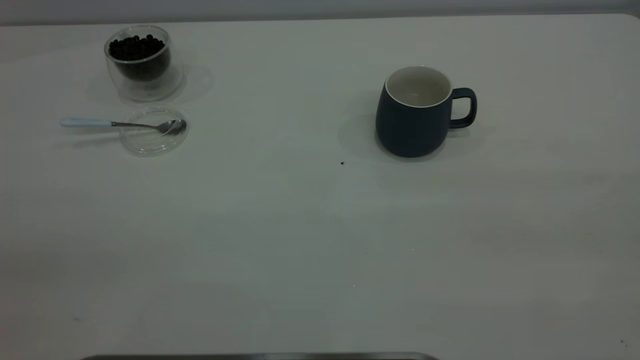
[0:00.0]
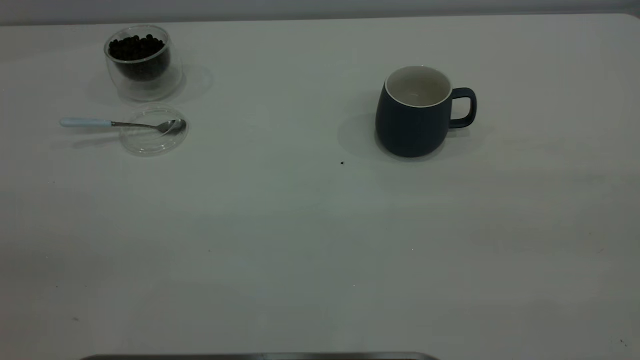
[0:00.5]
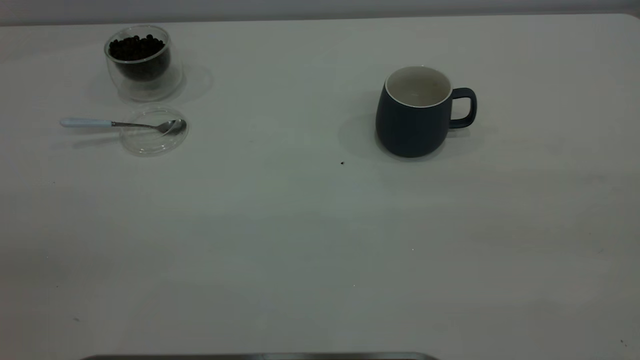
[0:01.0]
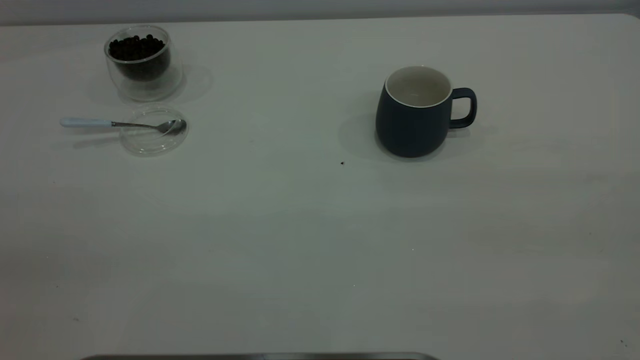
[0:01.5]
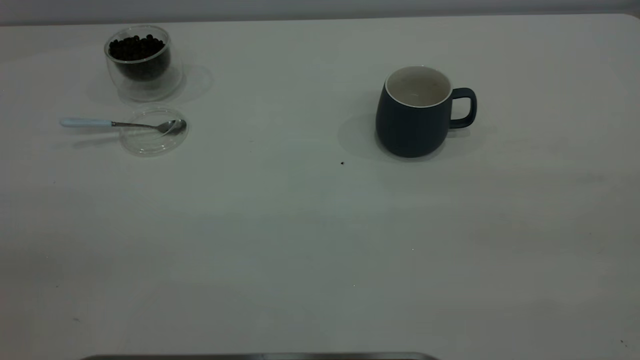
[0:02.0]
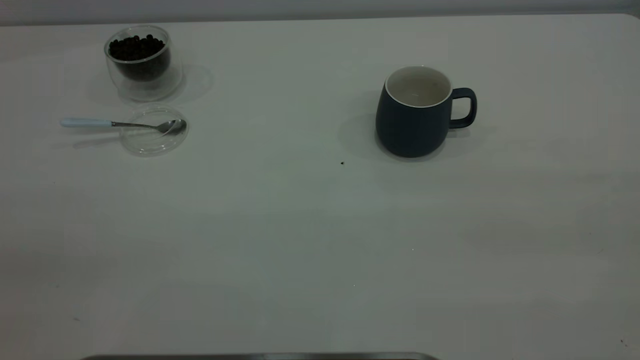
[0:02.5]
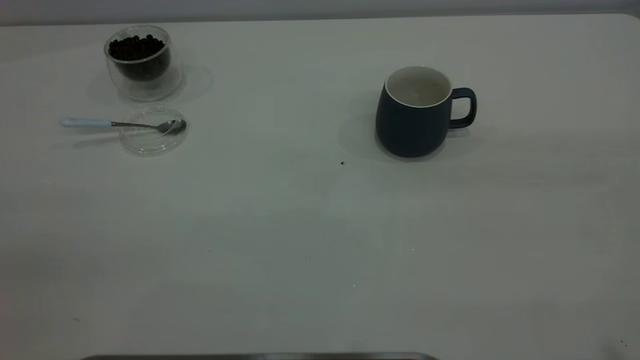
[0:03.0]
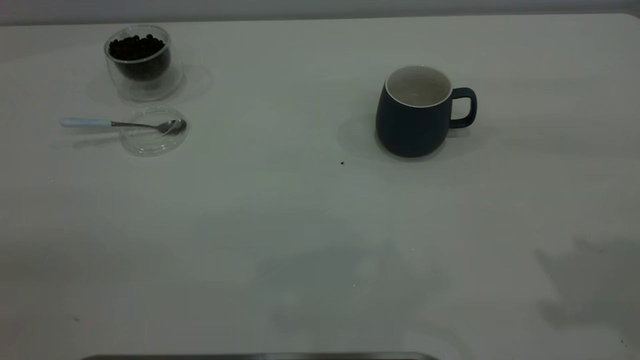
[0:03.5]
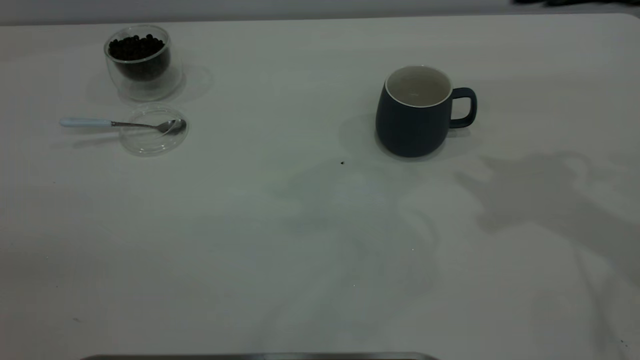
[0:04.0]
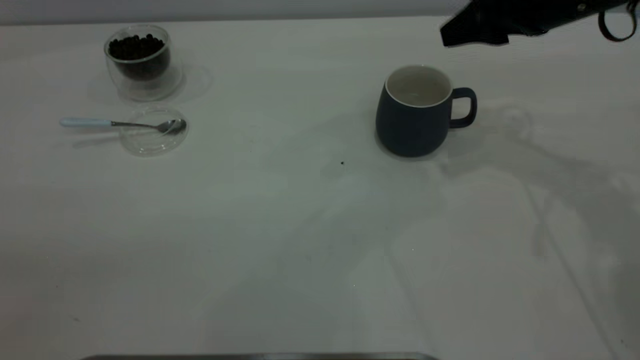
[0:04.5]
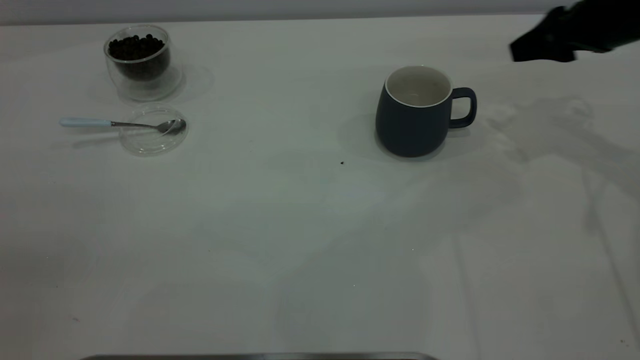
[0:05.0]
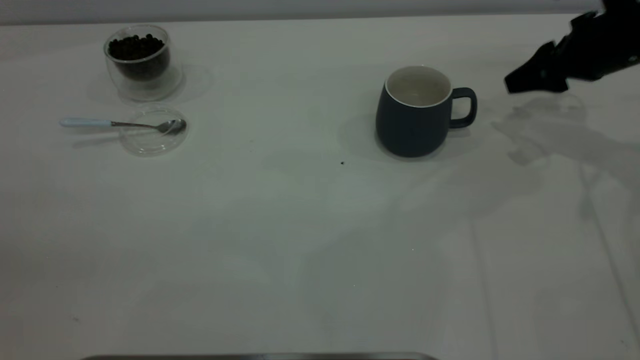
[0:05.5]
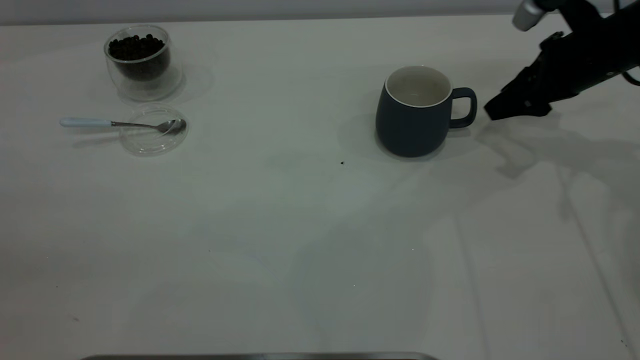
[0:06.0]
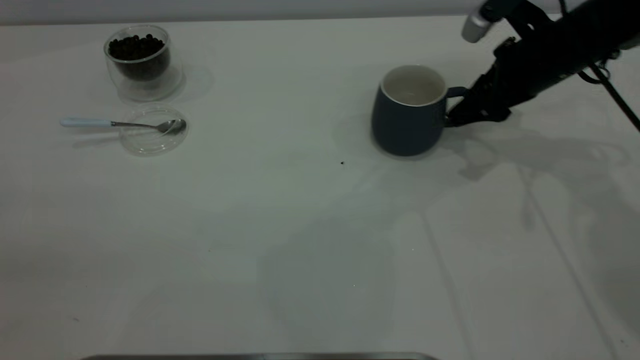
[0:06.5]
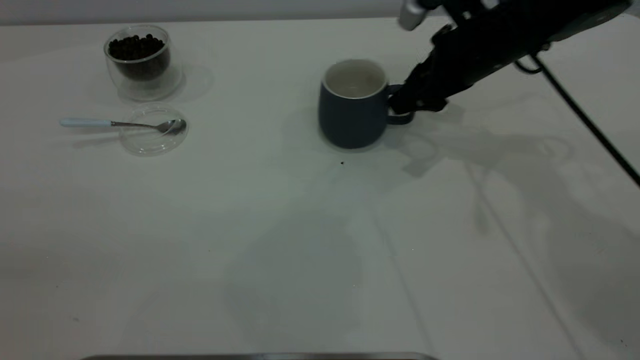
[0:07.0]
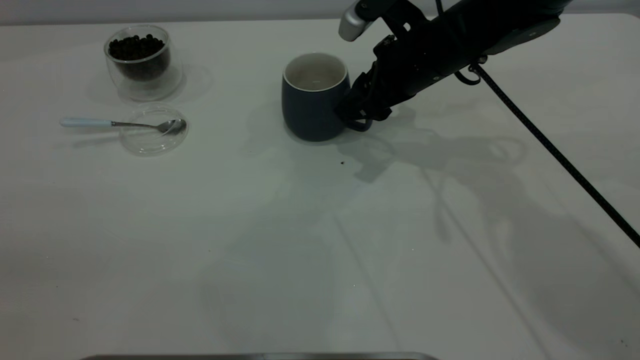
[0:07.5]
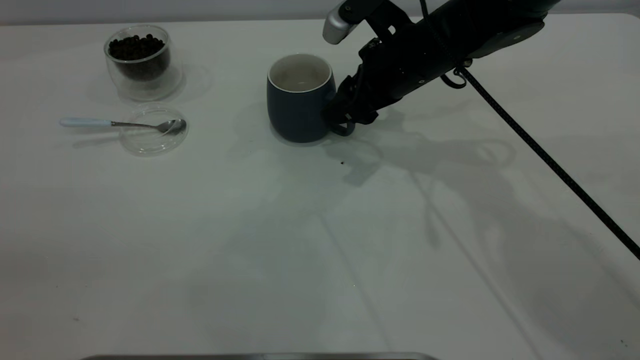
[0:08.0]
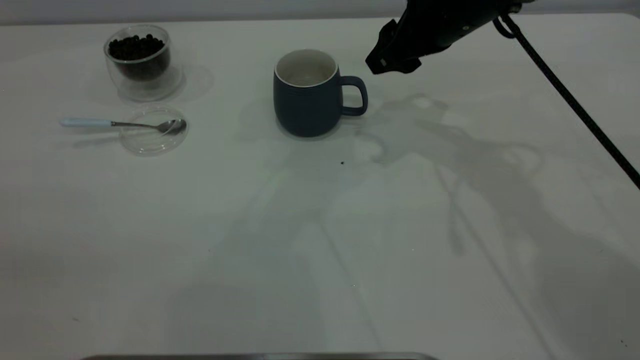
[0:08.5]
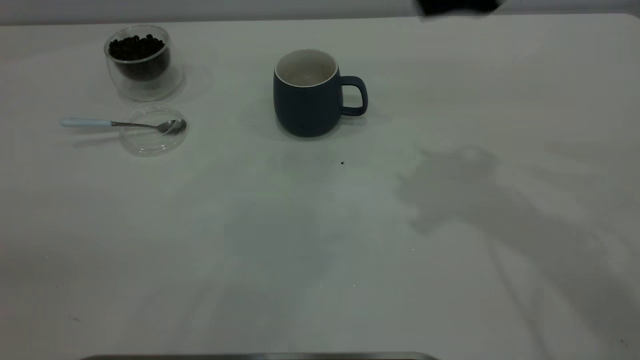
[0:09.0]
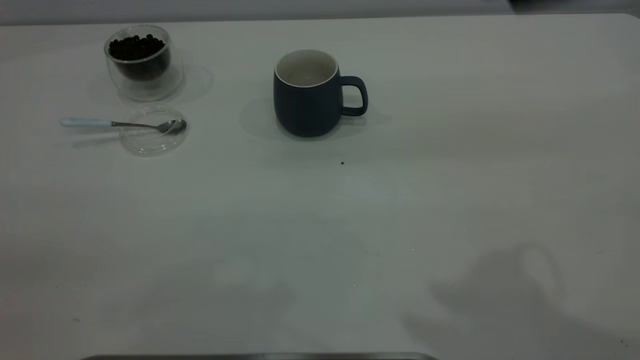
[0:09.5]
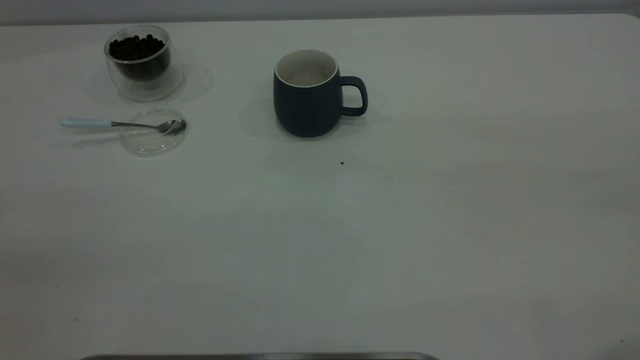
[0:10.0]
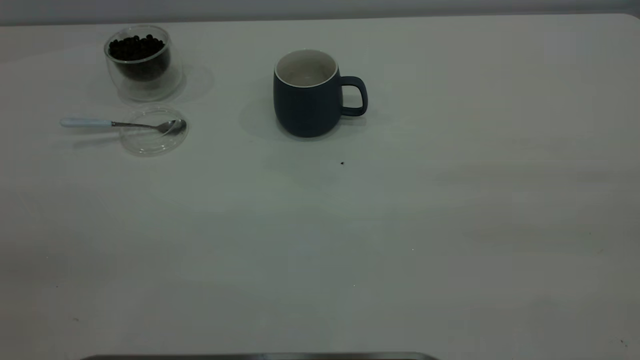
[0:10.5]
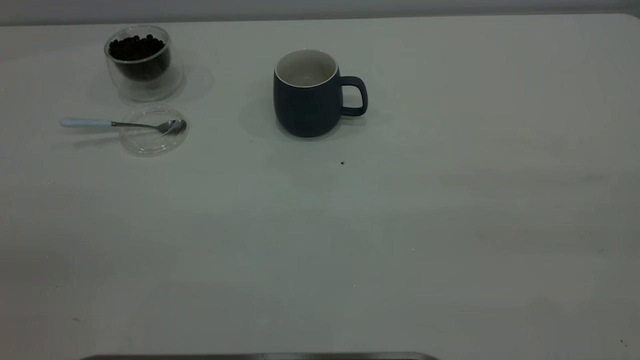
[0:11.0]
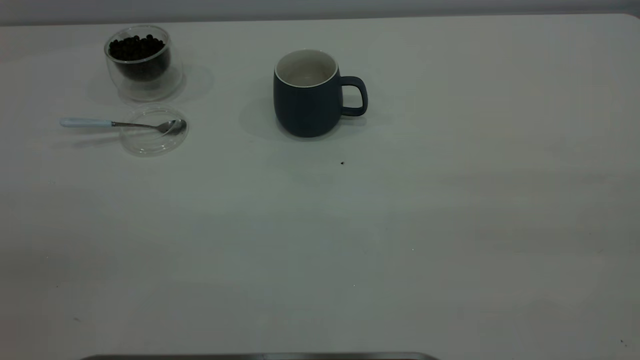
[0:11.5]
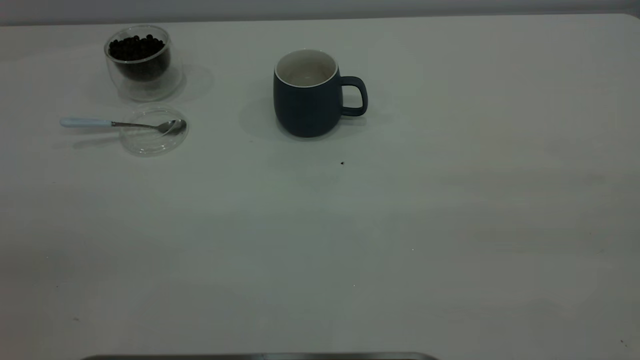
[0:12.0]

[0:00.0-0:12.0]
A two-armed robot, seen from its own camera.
Task of the whole recording: the right gripper place the grey cup in the center of the table, the left gripper take the blue spoon from the cup lid and scoop out the coffee beans from the coffee cup and put them into the grey cup, the left gripper put the spoon back into the cup lid.
Step, 0:00.0 to 0:08.5: Move the cup to the center of view.
0:00.0 to 0:02.0: Neither gripper changes place.
0:04.0 to 0:06.0: The right gripper goes roughly 20 cm downward and forward.
0:06.0 to 0:08.0: The right gripper shifts roughly 20 cm to the left.
0:08.0 to 0:10.0: The right gripper travels backward, upward and to the right by approximately 50 cm.

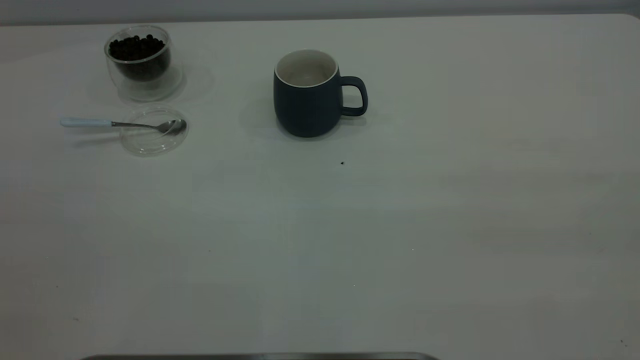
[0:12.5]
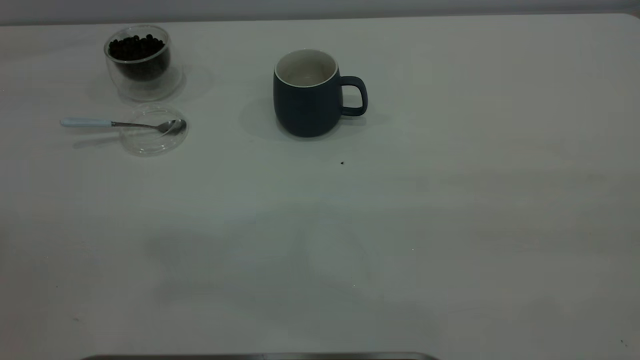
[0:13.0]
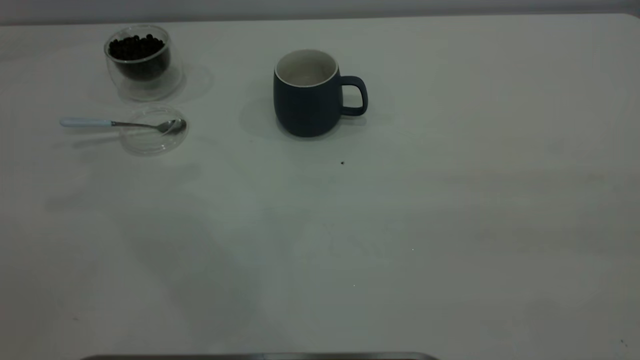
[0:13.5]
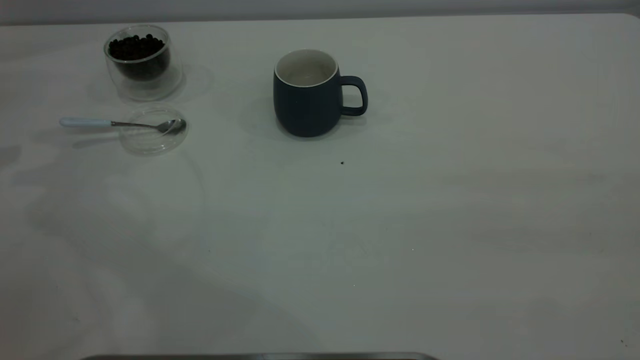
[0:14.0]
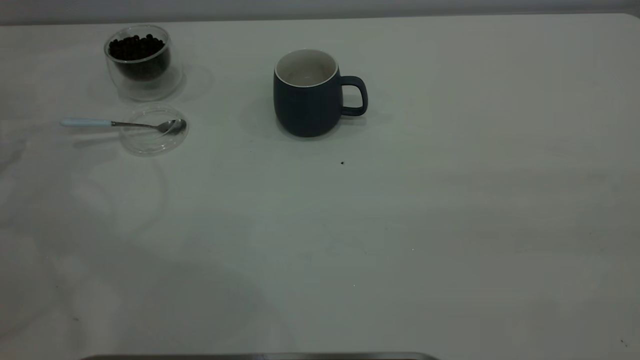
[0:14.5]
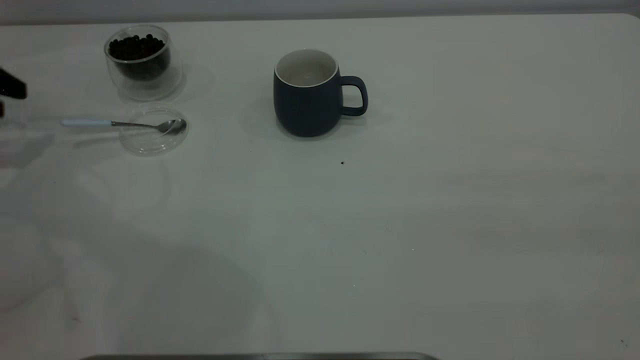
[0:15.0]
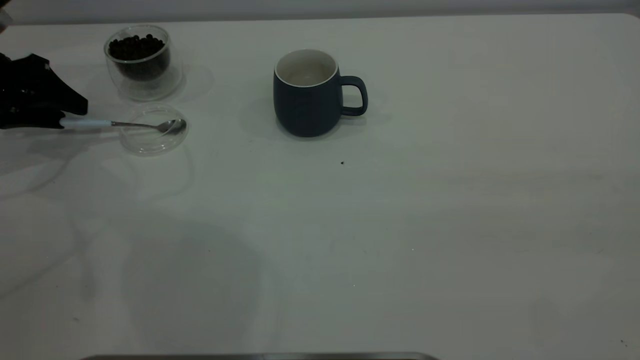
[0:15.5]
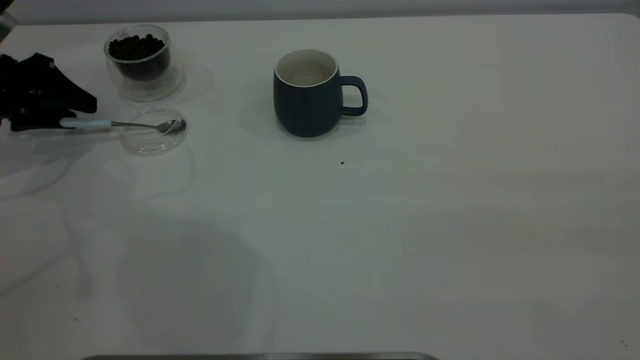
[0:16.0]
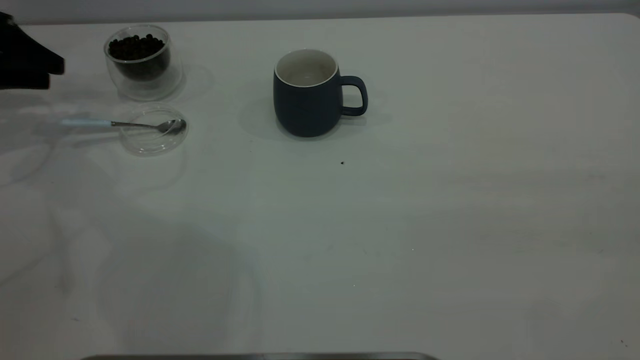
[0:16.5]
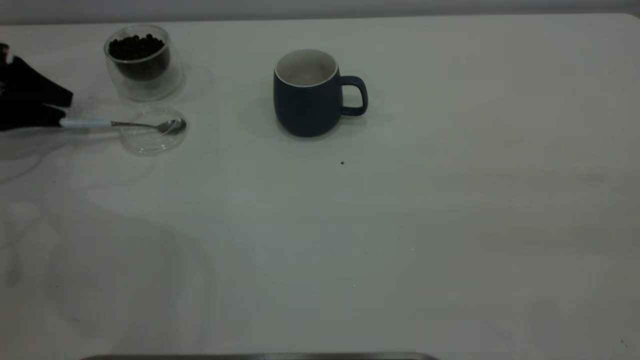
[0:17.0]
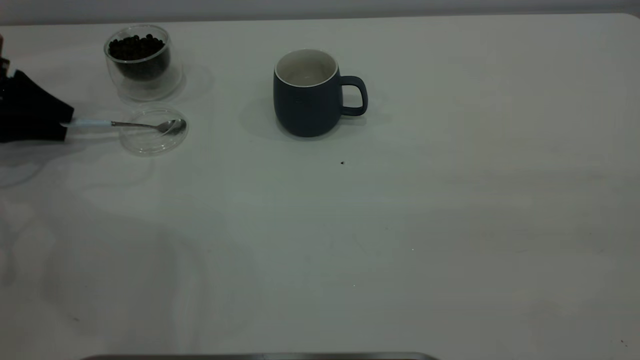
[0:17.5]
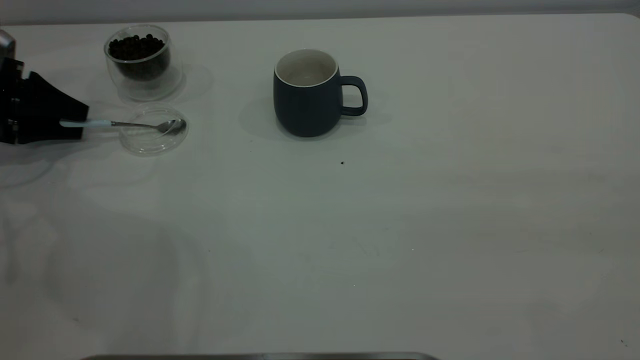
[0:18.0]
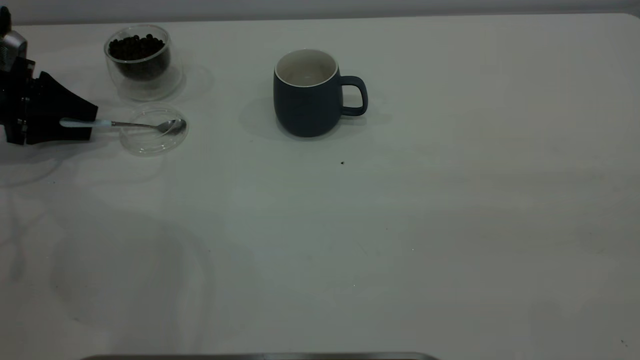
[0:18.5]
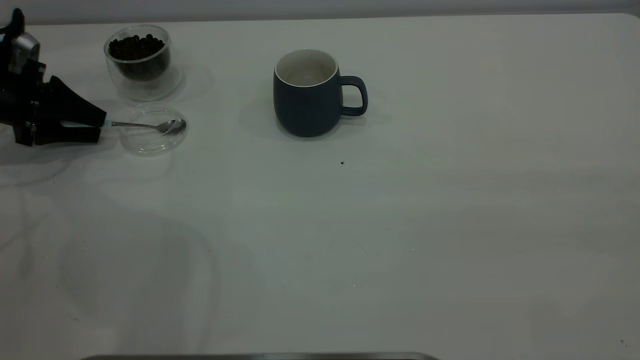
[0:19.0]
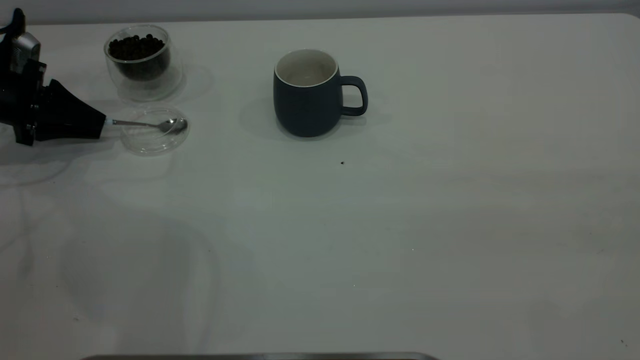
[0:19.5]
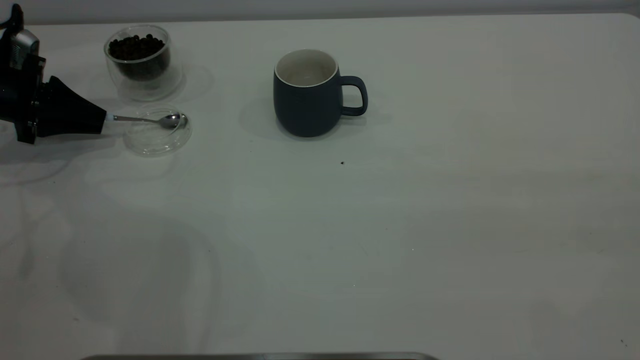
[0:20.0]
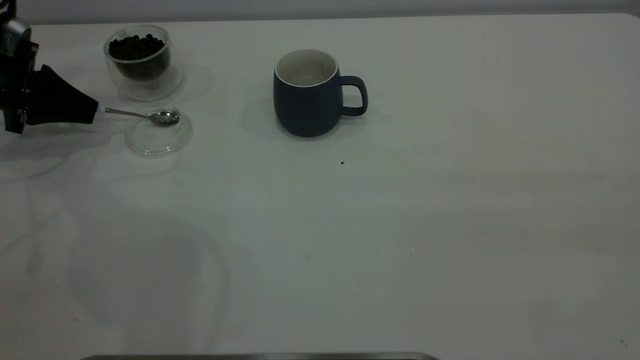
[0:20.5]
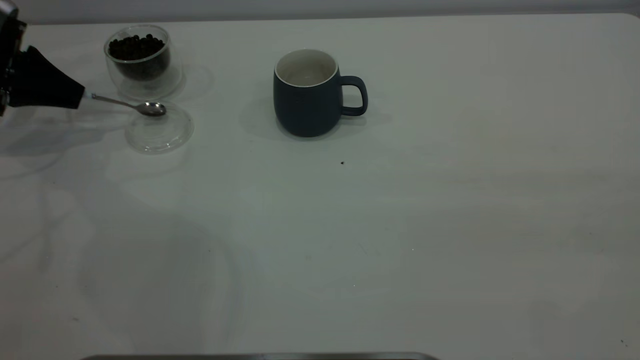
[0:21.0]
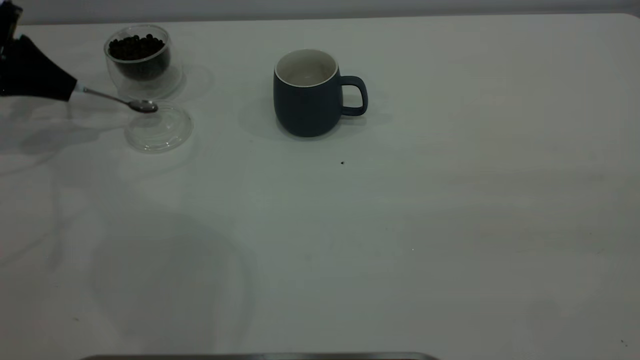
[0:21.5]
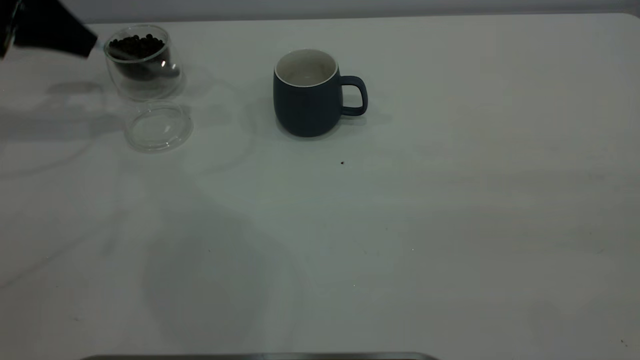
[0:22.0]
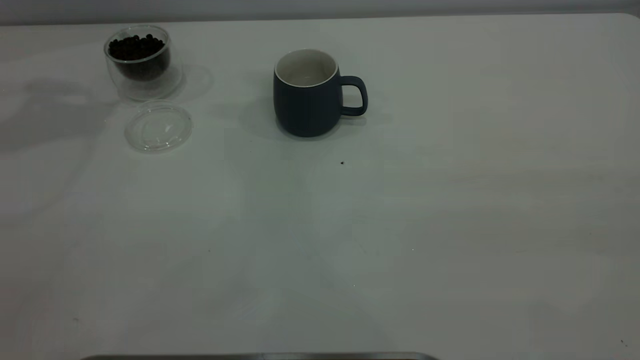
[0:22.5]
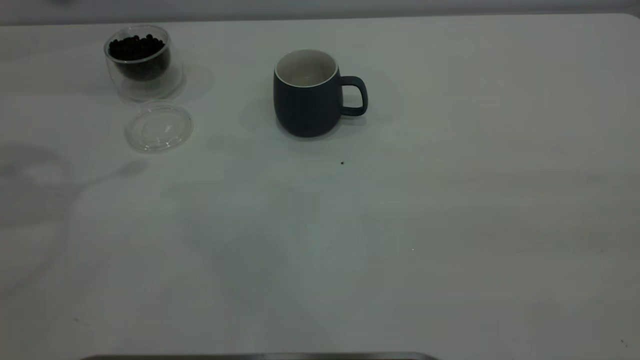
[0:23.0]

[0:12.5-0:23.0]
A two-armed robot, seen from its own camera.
Task of the whole recording: the right gripper place the grey cup in the center of the table, the left gripper take the blue spoon from the cup lid and scoop out the coffee beans from the coffee cup and put them into the grey cup, the left gripper put the spoon back into the cup lid.
Step, 0:12.5 to 0:21.5: Pick up the spoon.
0:14.5 to 0:16.5: The left gripper travels forward by roughly 5 cm.
0:16.5 to 0:19.0: The left gripper heads downward, covering approximately 5 cm.
0:19.0 to 0:21.0: The left gripper heads upward, covering approximately 5 cm, and closes up.
0:21.0 to 0:23.0: The left gripper heads upward and backward, covering approximately 25 cm.
